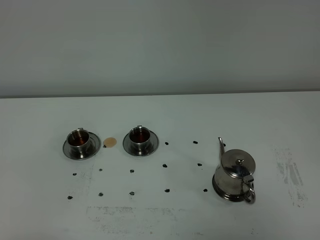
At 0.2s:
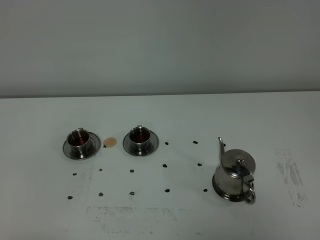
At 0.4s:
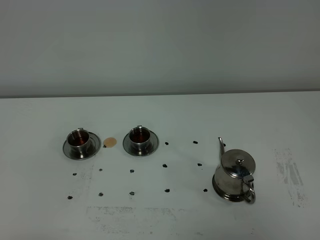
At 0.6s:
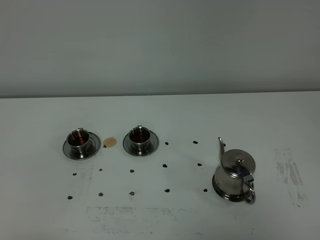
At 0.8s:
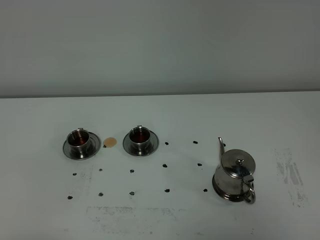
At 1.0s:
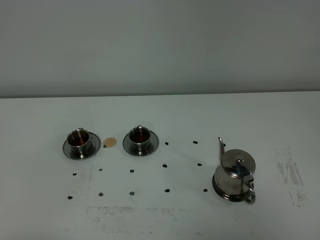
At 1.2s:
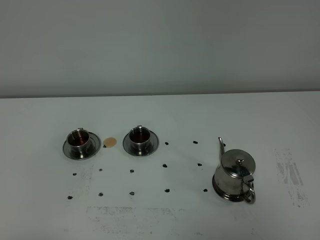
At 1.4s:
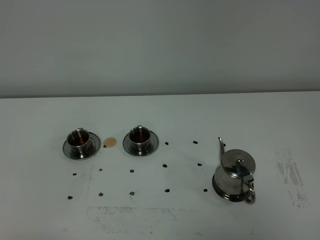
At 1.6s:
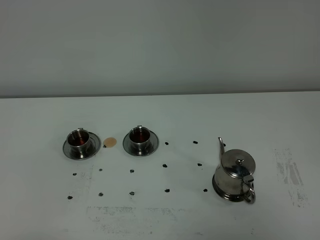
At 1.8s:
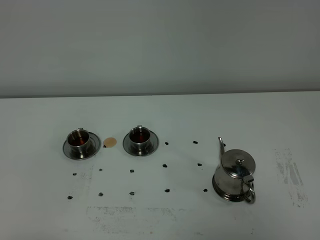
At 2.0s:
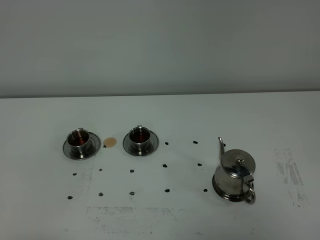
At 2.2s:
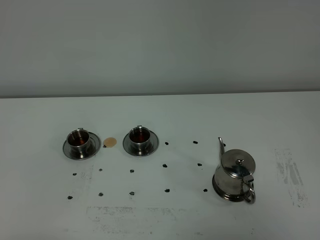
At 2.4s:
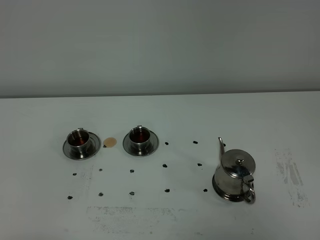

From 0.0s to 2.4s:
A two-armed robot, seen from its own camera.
Task of the whole recording: grasp the stainless steel teapot and pour the tea into the two stainless steel teacups one by one, put the stainless steel teapot back in its original place.
From 0.0s to 1.2s: Neither gripper changes place.

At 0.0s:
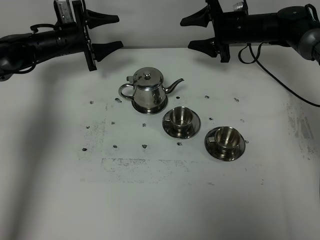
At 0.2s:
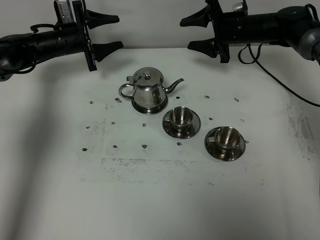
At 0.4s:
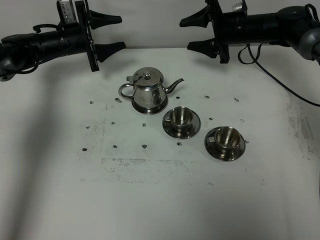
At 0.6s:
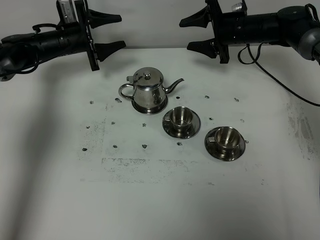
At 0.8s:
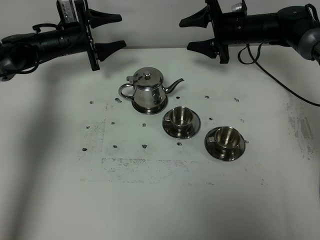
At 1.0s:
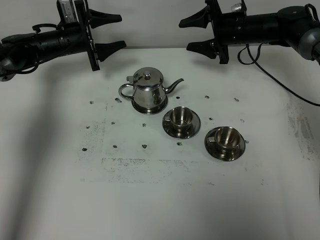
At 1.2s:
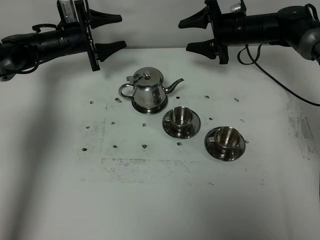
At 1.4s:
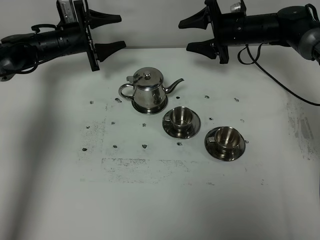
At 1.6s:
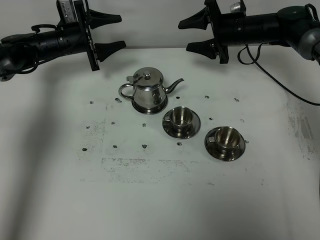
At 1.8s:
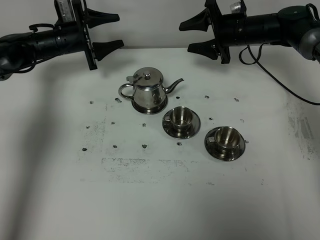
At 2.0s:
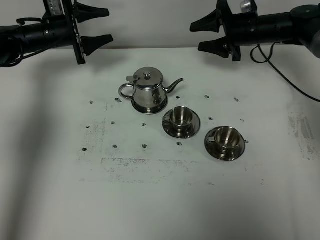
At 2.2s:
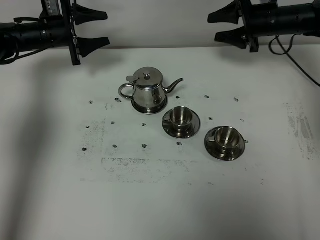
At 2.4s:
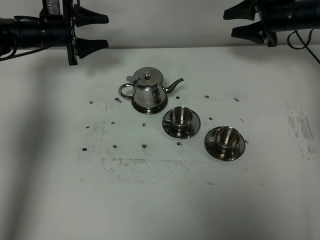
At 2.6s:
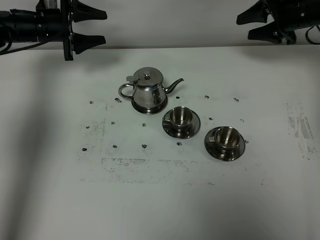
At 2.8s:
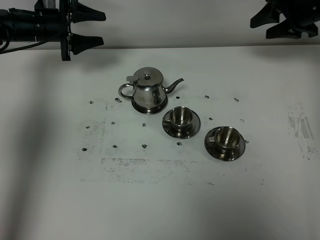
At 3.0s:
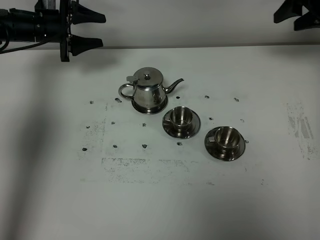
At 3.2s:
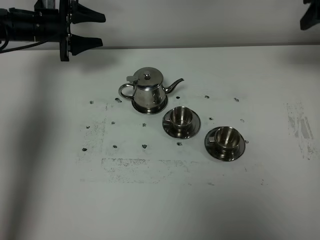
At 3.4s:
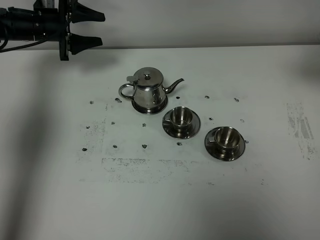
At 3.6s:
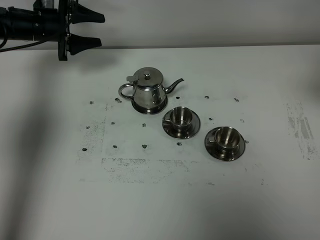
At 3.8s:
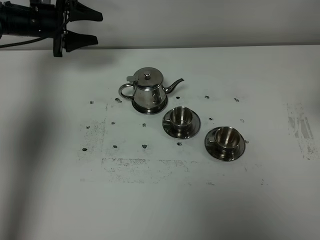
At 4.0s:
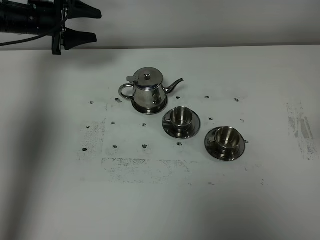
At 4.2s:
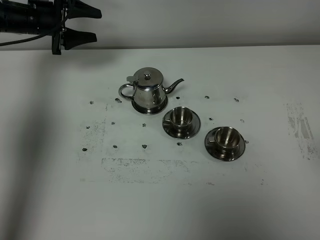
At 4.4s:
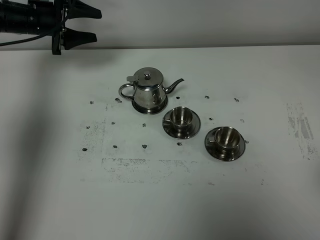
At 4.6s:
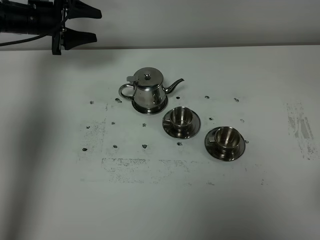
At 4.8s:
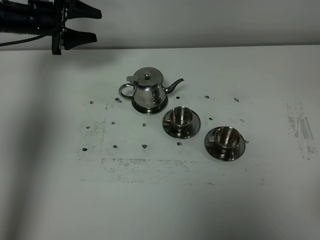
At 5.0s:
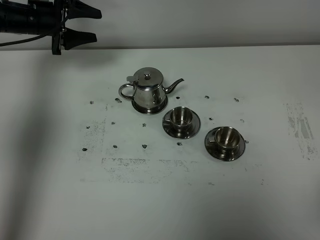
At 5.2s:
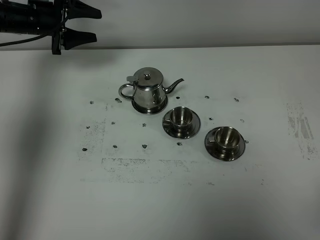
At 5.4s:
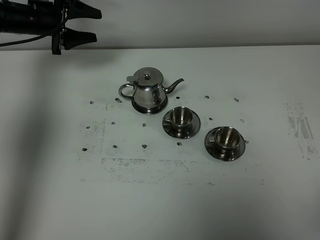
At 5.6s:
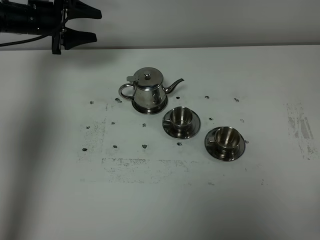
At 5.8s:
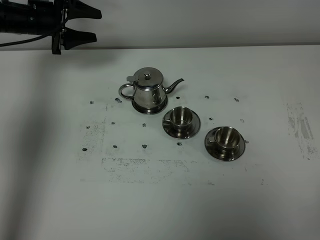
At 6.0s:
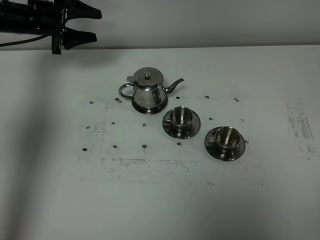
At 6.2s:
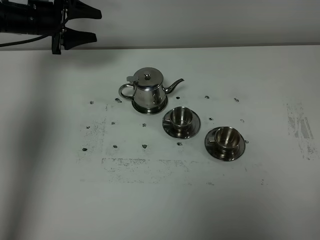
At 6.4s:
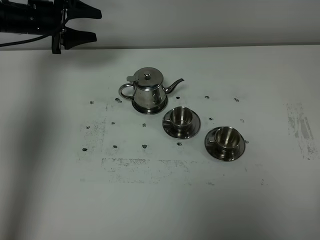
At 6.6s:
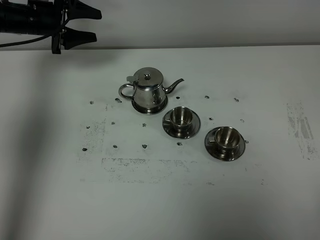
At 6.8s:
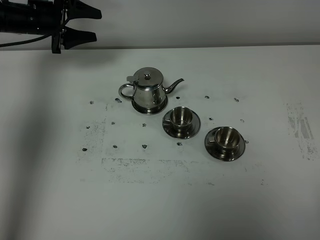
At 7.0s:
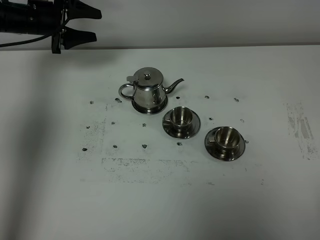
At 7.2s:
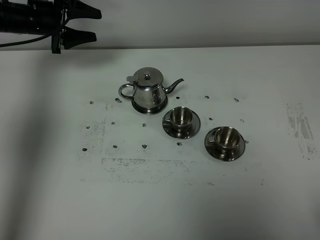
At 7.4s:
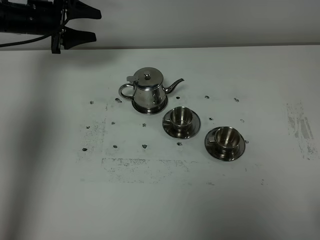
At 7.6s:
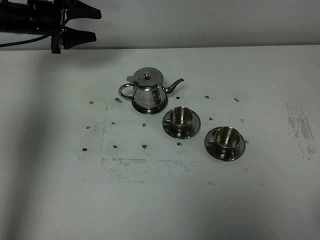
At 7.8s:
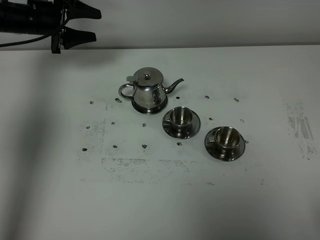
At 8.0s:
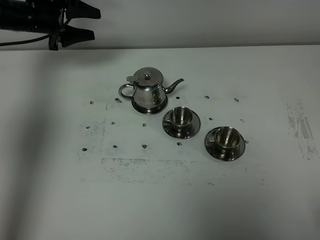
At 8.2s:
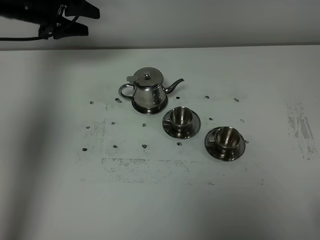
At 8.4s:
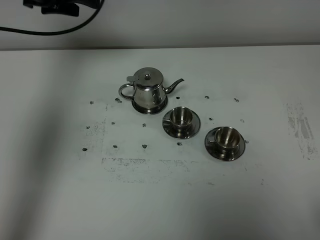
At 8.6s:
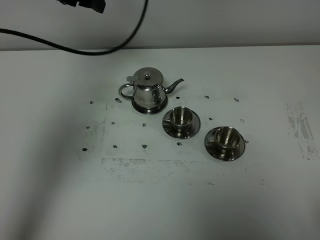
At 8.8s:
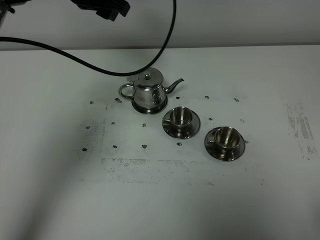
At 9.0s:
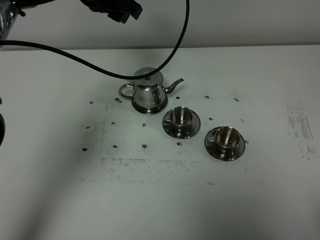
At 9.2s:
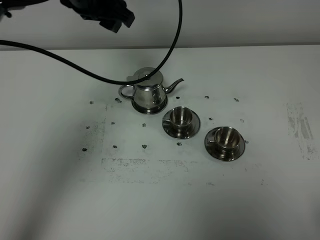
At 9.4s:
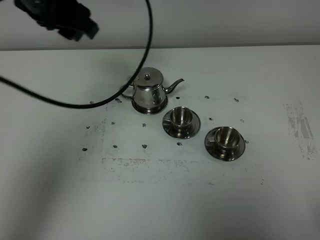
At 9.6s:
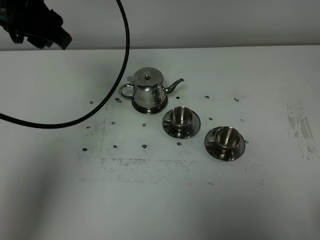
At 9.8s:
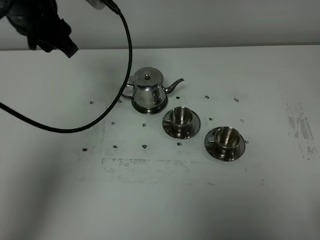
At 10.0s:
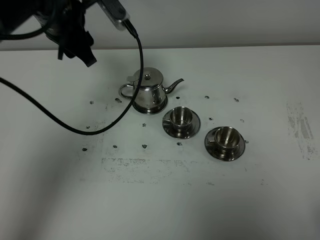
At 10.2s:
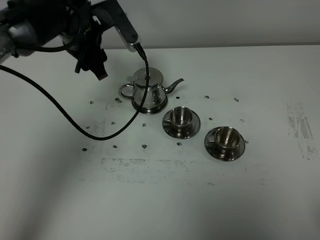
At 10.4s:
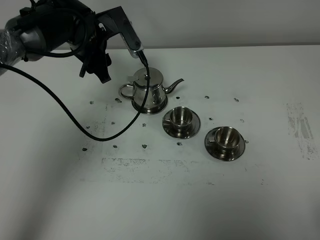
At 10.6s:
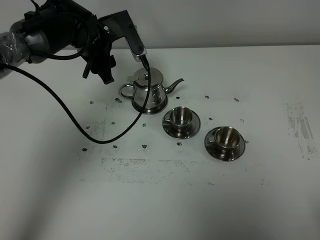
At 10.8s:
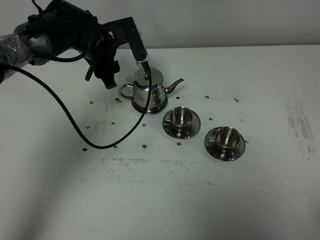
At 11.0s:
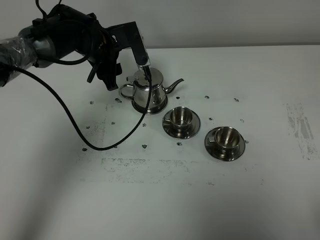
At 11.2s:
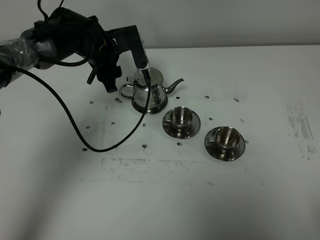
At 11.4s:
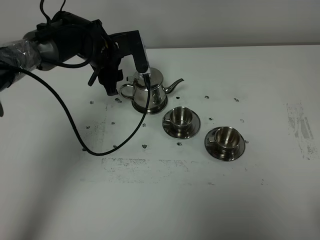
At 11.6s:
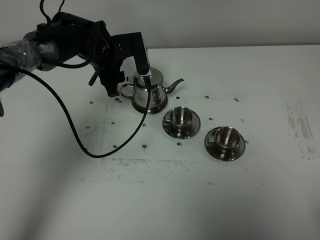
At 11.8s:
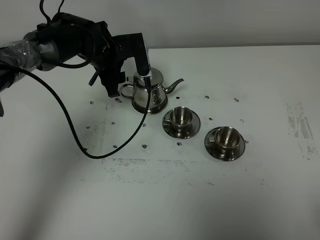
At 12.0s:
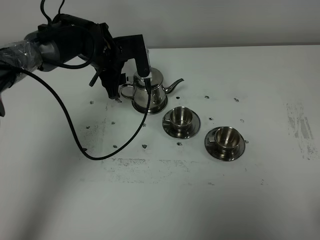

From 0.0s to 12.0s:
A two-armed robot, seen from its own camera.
Task of the whole recording: grasp the stainless steel teapot and pour the tea into the two stainless steel teacups one by one, put the stainless steel teapot back in its original place.
From 0.0s to 1.6s: Neither gripper changes place.
From 1.6s to 3.0s: The left gripper moves upward, some 5 cm, while the right gripper travels to the right, upward and backward by about 20 cm, and closes up.
From 3.0s to 4.4s: The right gripper is displaced backward by approximately 40 cm.
From 7.6s to 9.0s: The left gripper is displaced to the right, upward and backward by approximately 25 cm.
From 9.0s to 10.4s: The left gripper moves downward, roughly 10 cm.
From 10.4s to 12.0s: The left gripper travels downward by roughly 5 cm.

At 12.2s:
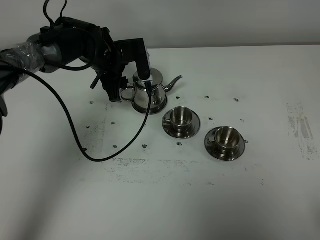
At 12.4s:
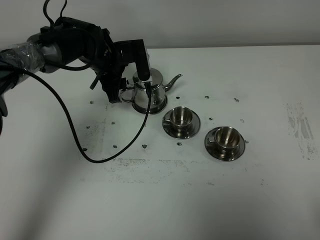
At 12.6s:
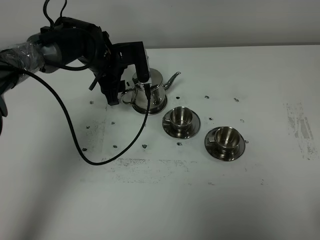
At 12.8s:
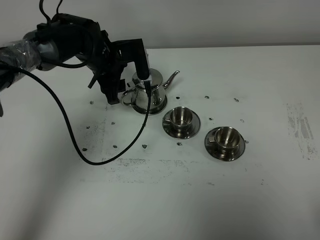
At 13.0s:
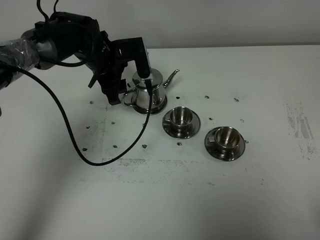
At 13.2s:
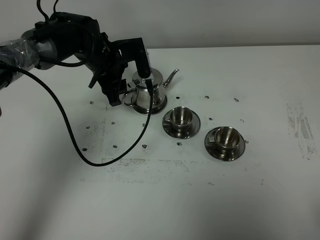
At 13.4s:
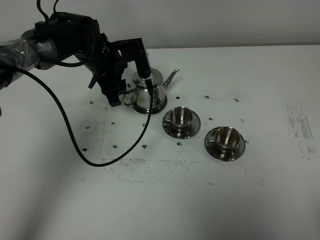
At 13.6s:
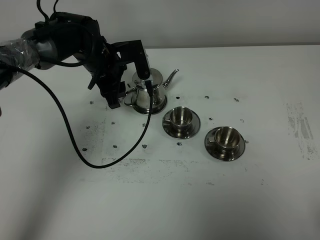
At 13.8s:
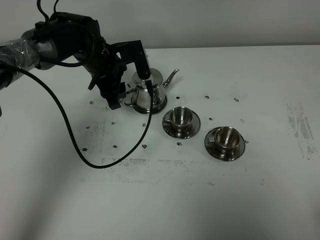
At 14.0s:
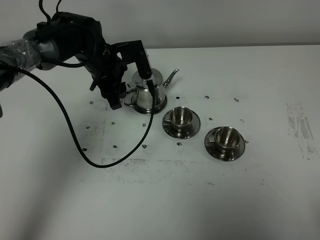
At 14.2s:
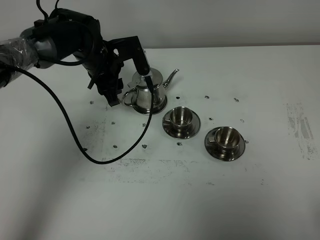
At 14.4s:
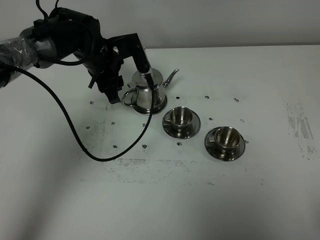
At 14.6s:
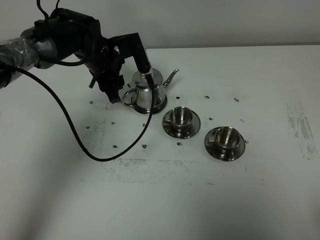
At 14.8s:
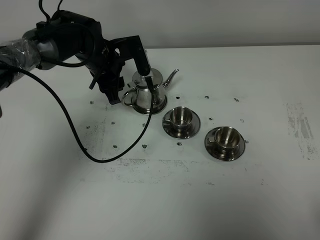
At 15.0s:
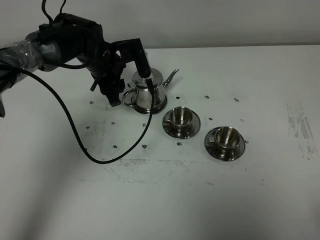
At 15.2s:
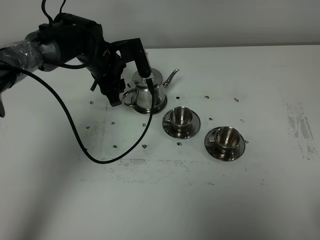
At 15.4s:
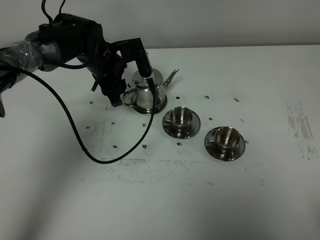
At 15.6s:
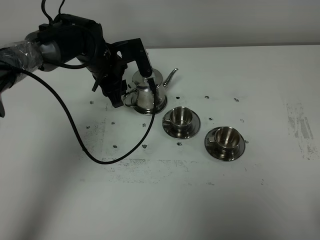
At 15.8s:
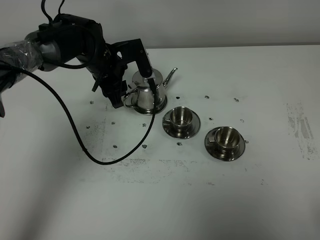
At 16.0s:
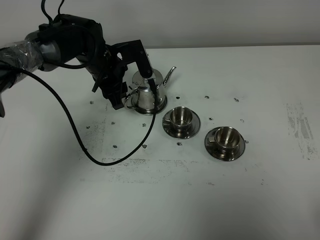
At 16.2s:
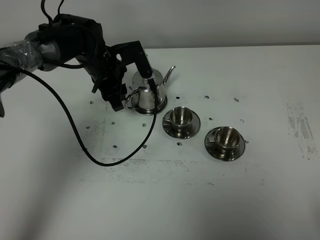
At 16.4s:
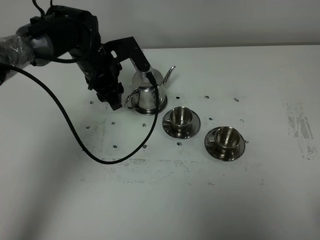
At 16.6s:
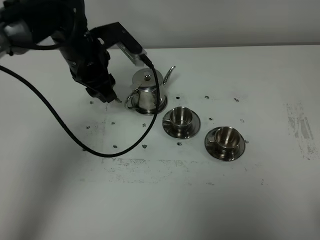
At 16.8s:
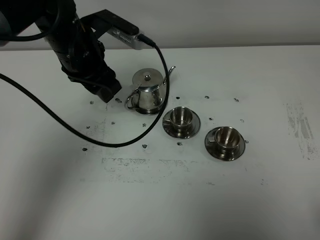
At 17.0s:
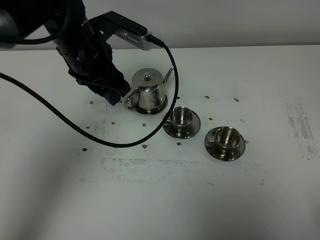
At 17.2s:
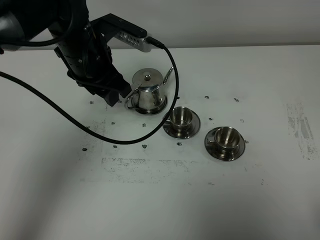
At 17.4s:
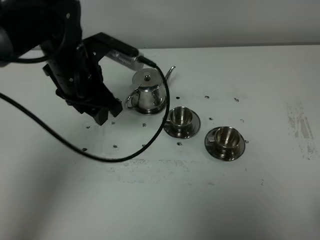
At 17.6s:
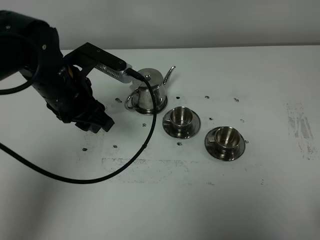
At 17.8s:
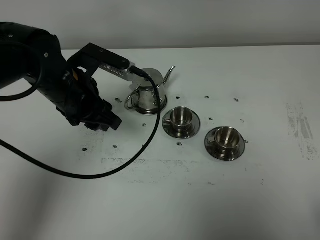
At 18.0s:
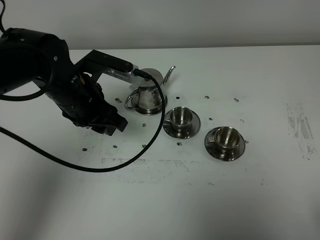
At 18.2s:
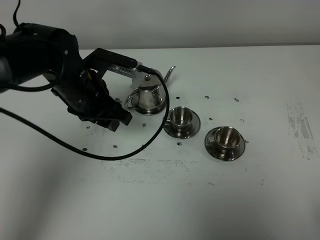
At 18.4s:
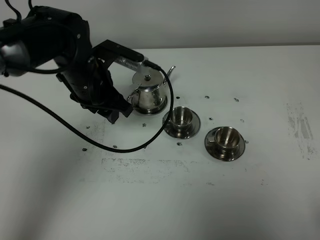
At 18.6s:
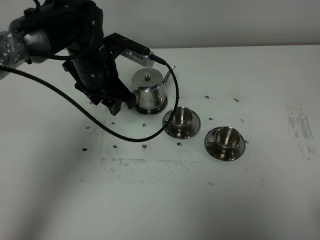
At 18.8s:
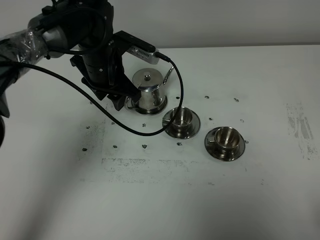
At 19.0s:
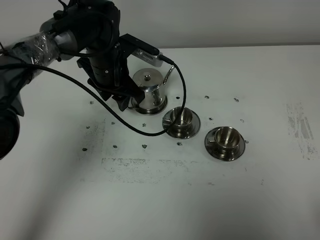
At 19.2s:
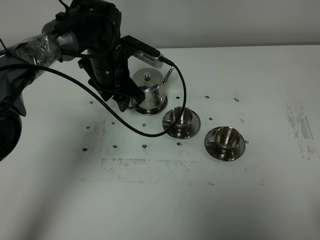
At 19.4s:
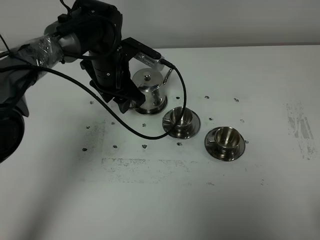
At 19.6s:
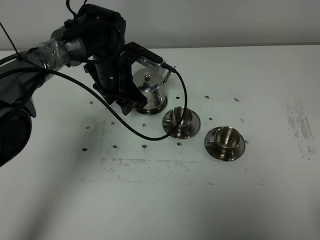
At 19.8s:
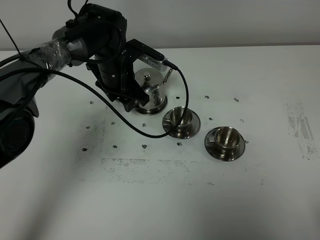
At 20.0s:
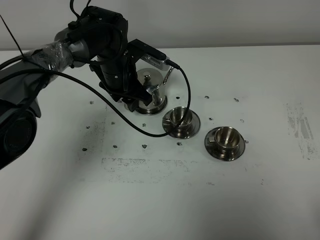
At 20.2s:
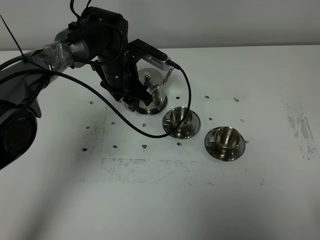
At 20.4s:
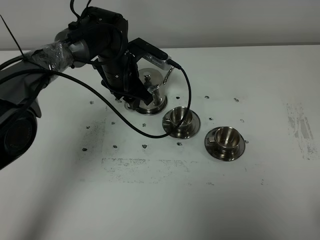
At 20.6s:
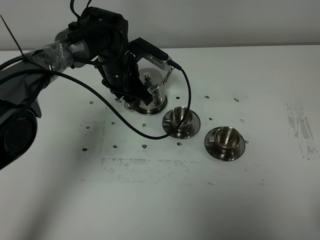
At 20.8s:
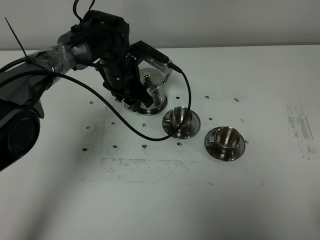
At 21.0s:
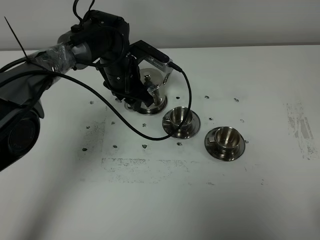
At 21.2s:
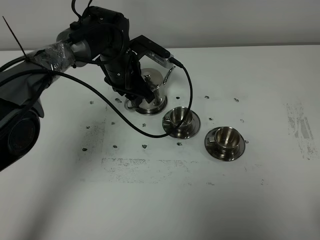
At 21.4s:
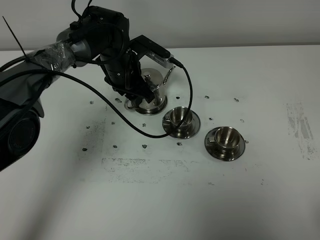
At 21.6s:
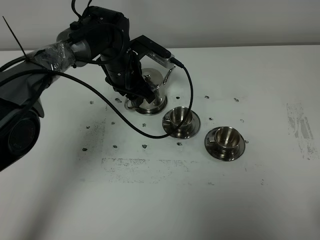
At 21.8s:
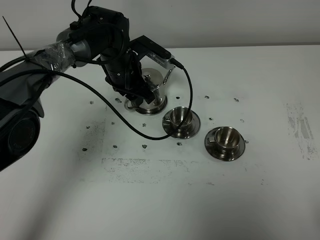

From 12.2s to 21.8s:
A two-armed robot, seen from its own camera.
Task of the whole recording: grasp the stainless steel teapot and pour the tea into the two stainless steel teacups one by one, put the stainless steel teapot back in its original place.
From 12.2s to 15.4s: The grippers stay close to where they were, moving slightly.
From 15.4s to 17.0s: The left gripper travels upward and backward by roughly 15 cm.
From 17.0s to 18.6s: The left gripper heads downward, covering roughly 5 cm, and moves about 5 cm backward and comes back.
From 18.6s to 20.2s: The left gripper moves downward and forward, roughly 10 cm.
From 20.2s to 21.8s: The grippers stay close to where they were, moving slightly.
